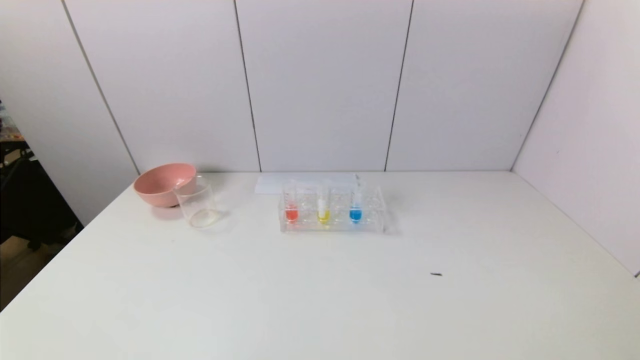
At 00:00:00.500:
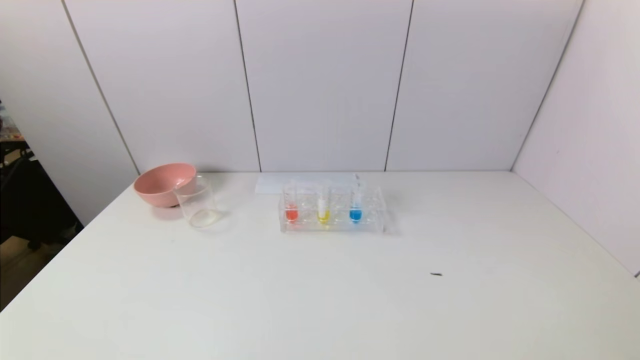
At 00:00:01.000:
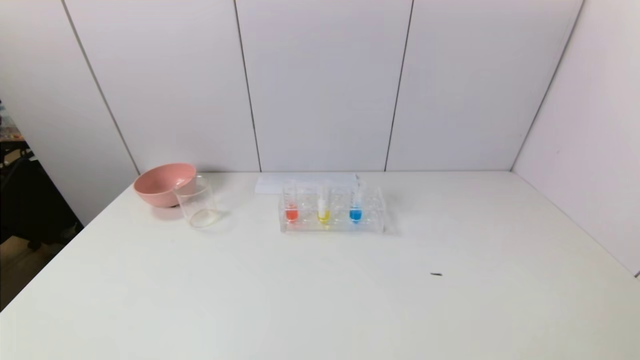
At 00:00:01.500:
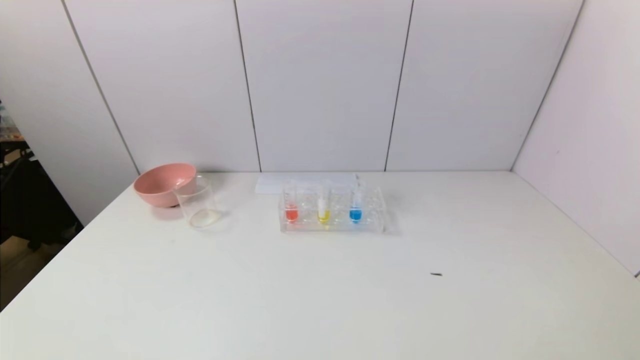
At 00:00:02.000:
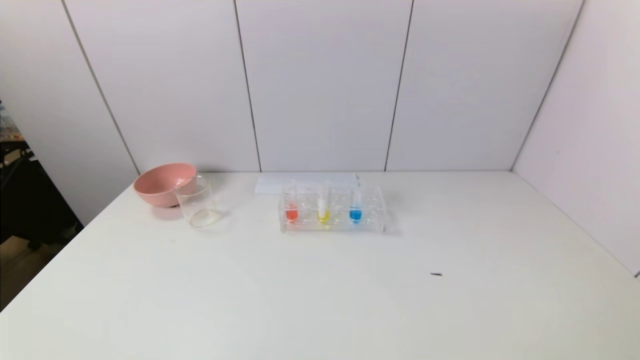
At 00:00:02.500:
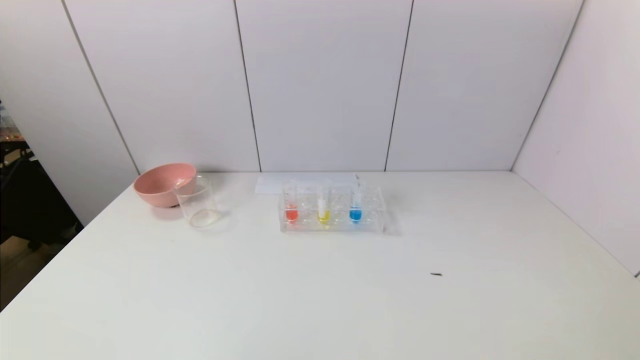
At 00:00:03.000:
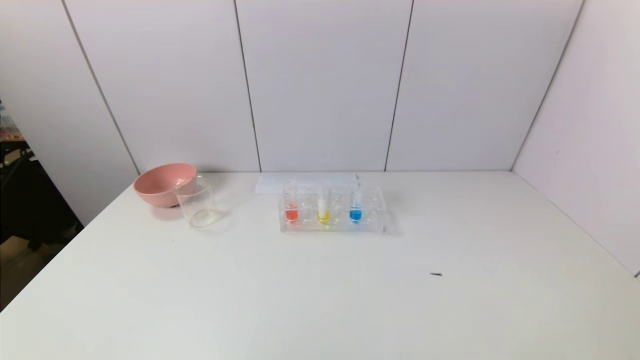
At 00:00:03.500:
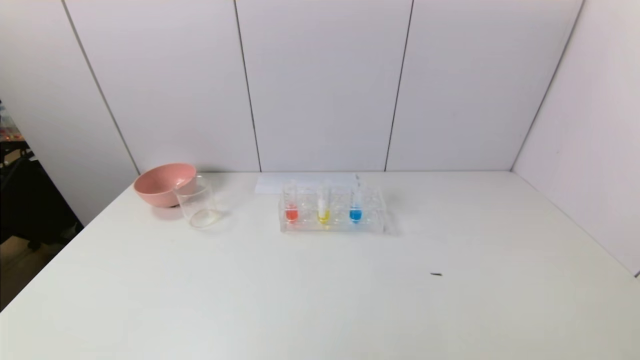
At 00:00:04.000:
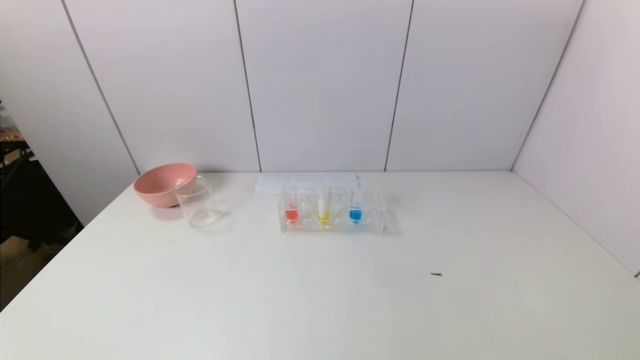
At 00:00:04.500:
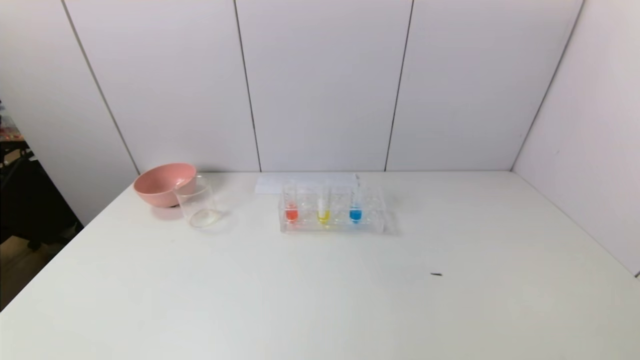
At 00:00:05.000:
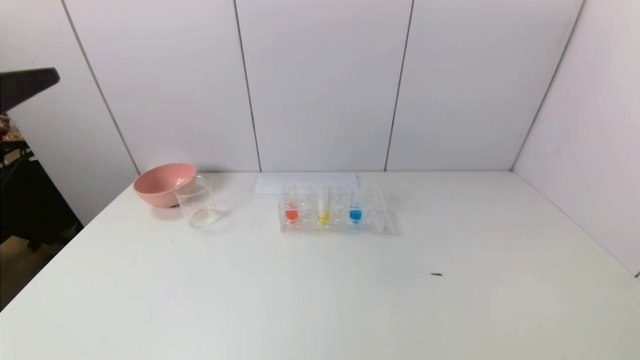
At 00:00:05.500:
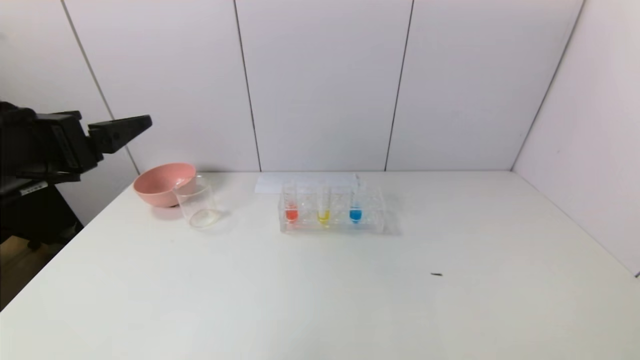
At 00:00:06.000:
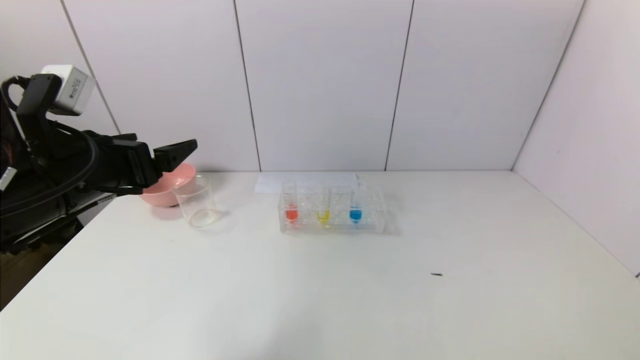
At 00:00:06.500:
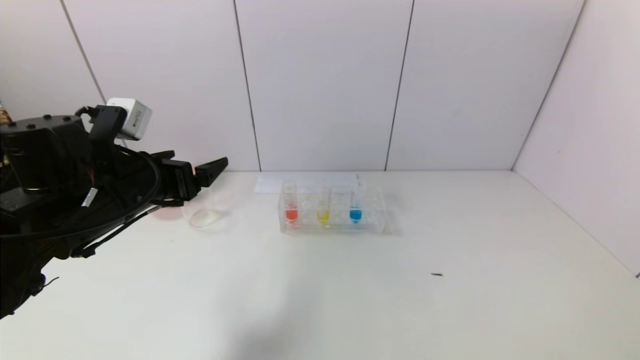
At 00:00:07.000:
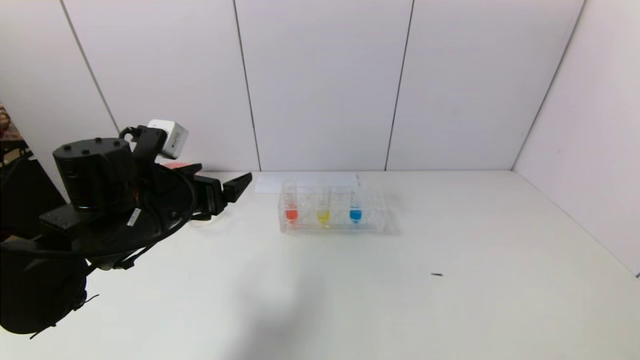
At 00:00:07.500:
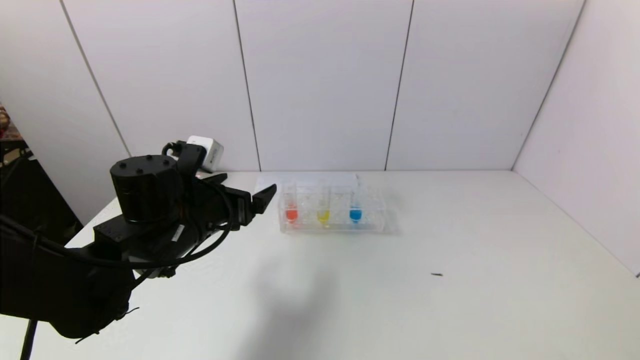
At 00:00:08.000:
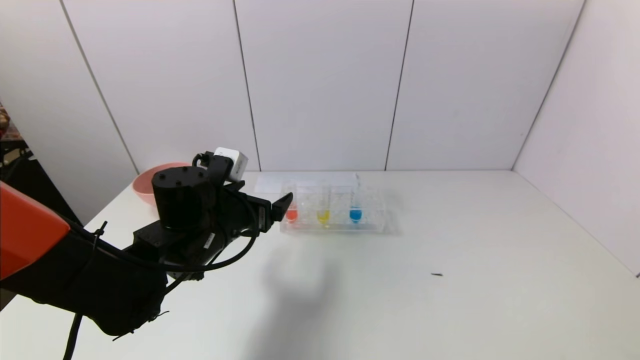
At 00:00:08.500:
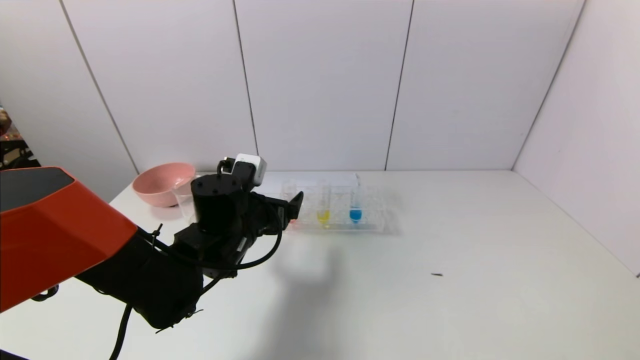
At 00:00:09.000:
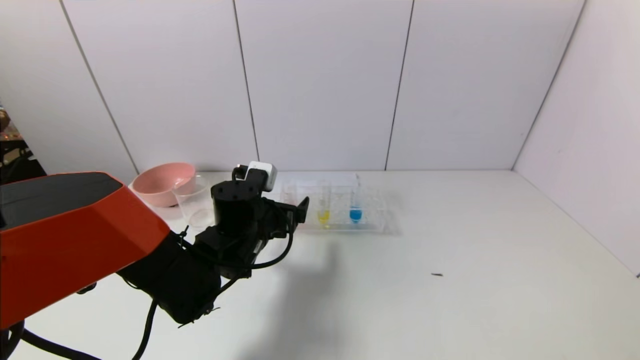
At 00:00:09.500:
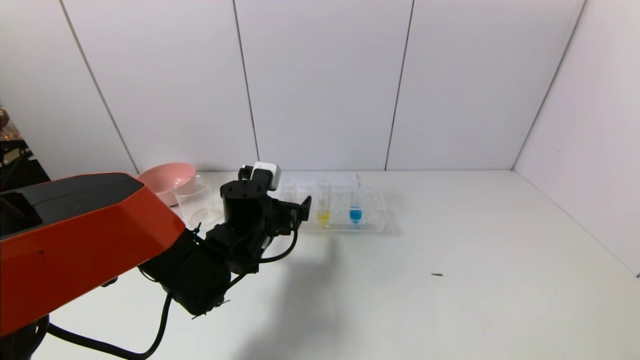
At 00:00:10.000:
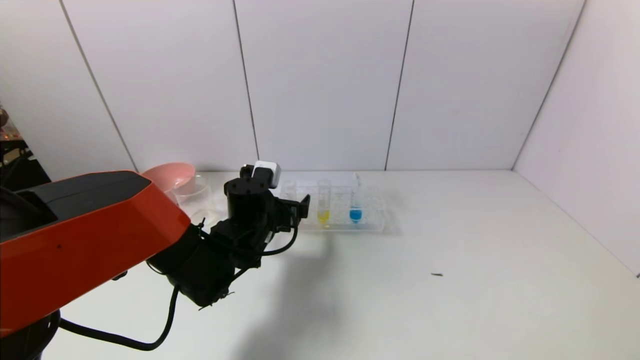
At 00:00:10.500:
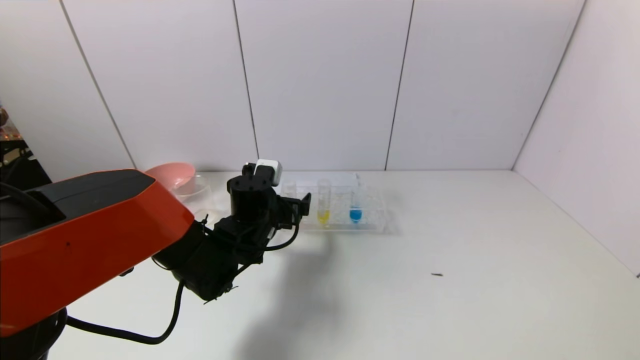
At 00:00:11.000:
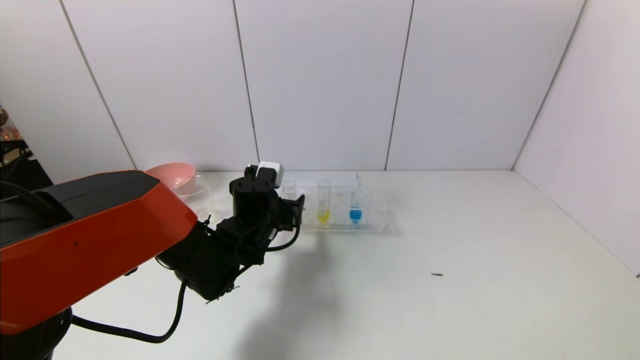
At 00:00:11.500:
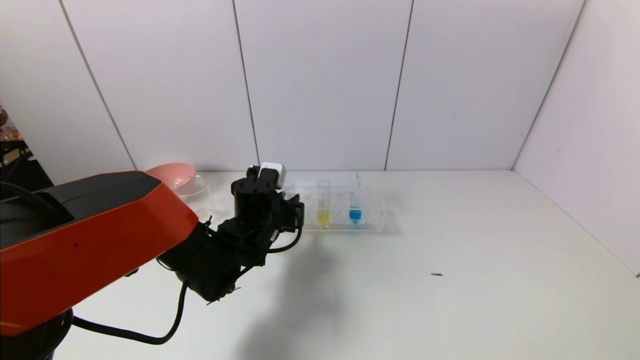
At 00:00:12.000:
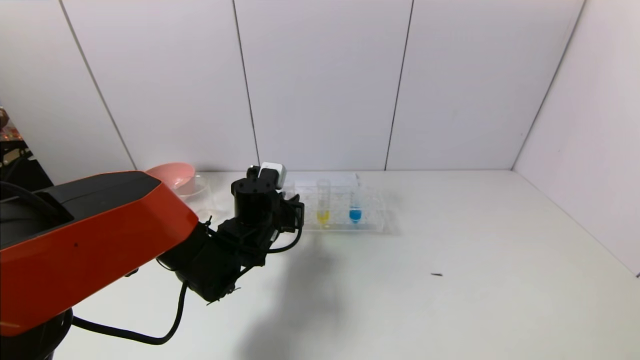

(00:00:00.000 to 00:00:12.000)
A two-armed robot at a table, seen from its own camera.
Task of the whole recording: pick up the test tube with yellow pigment and the test tube with red pigment by grippers and pour them into the beaker.
Step, 00:00:00.000 - 00:00:11.500: Grasp the red reagent with the left gripper.
00:00:00.000 - 00:00:02.000: Neither gripper changes place.
00:00:04.000 - 00:00:06.000: The left gripper goes approximately 25 cm forward and downward.
00:00:06.000 - 00:00:08.000: The left gripper heads downward, to the right and forward, covering roughly 15 cm.
00:00:08.000 - 00:00:10.000: The left gripper heads forward, covering roughly 5 cm.
00:00:10.000 - 00:00:12.000: The left gripper closes.

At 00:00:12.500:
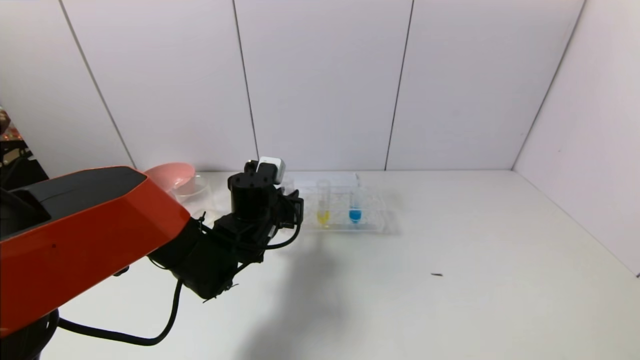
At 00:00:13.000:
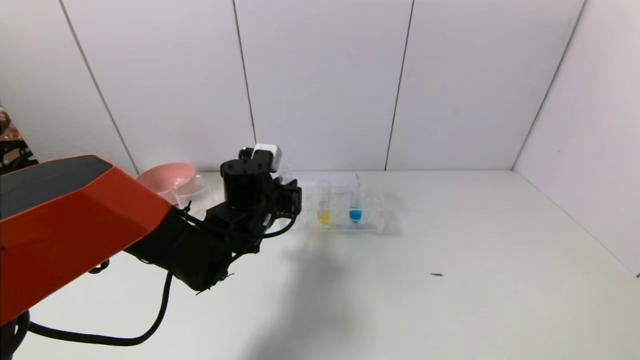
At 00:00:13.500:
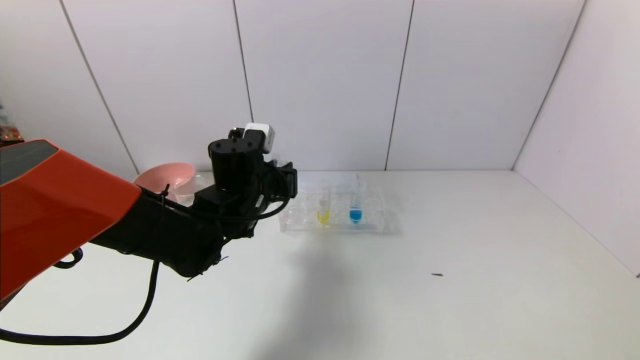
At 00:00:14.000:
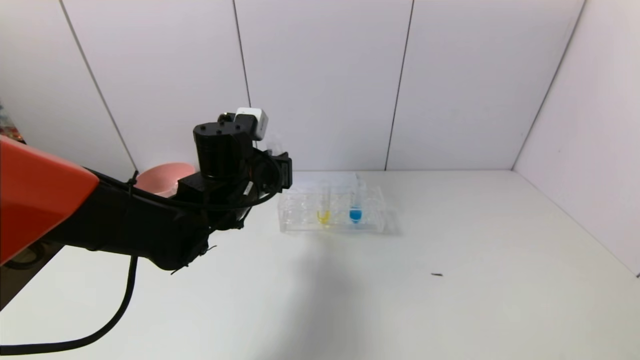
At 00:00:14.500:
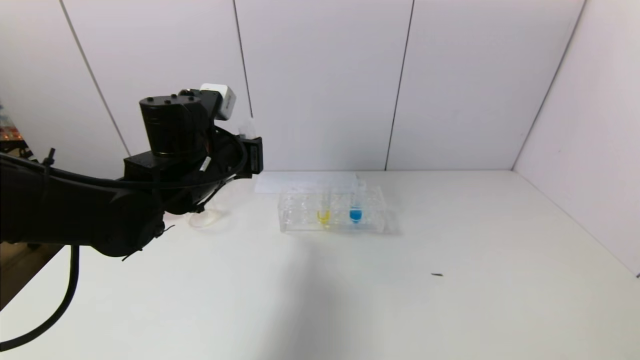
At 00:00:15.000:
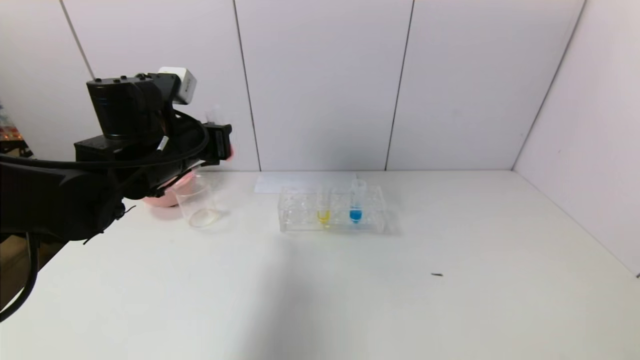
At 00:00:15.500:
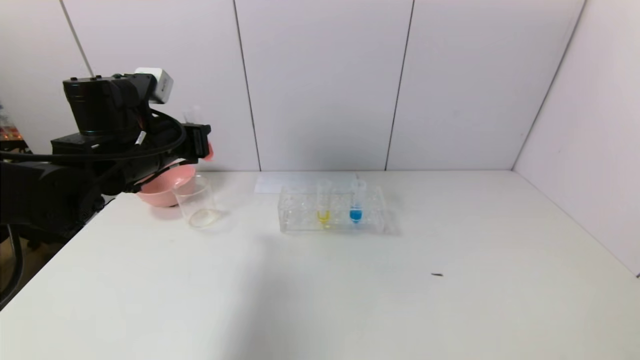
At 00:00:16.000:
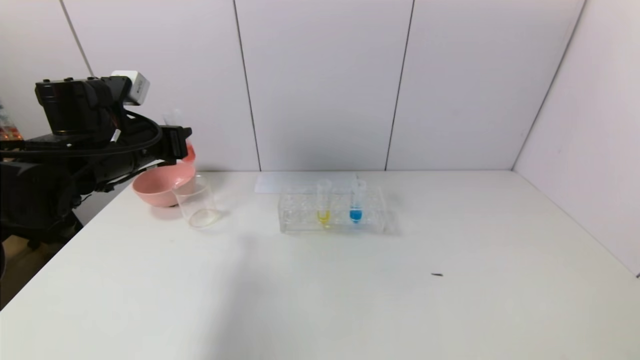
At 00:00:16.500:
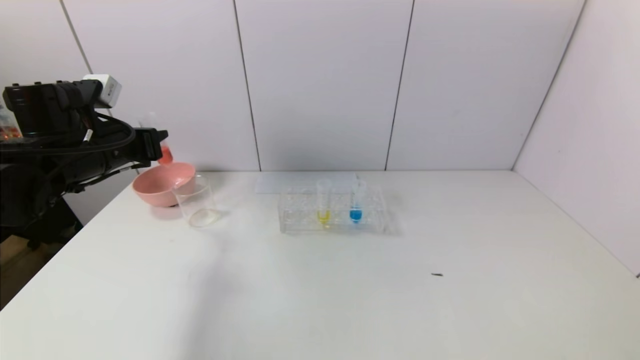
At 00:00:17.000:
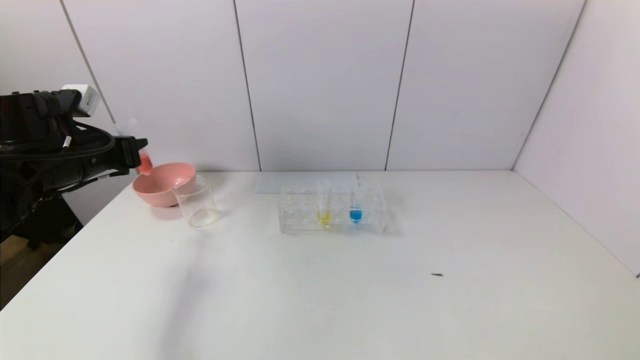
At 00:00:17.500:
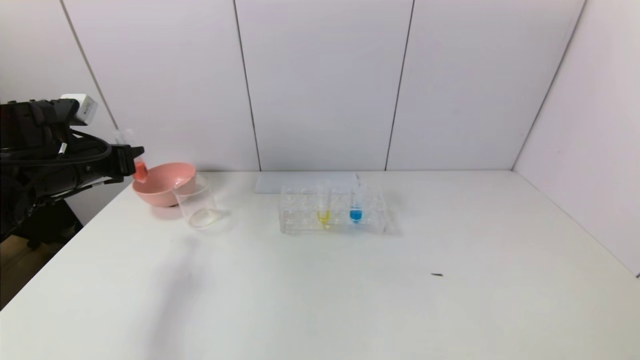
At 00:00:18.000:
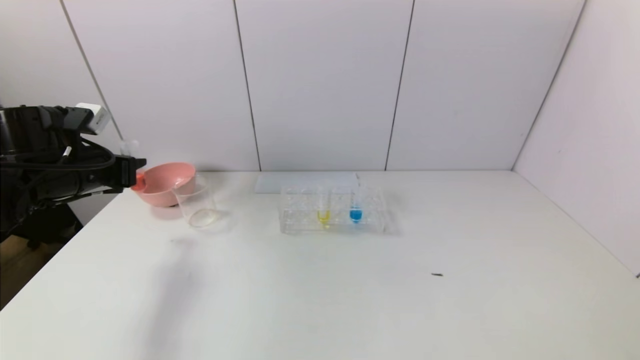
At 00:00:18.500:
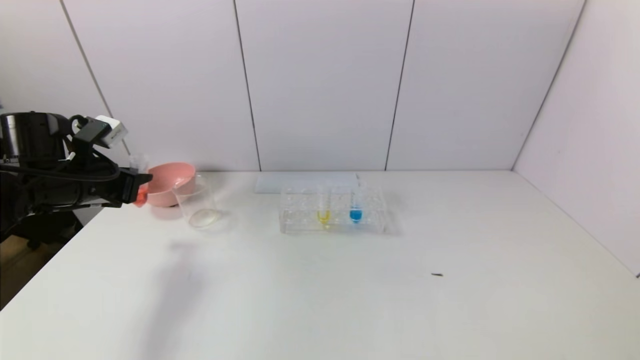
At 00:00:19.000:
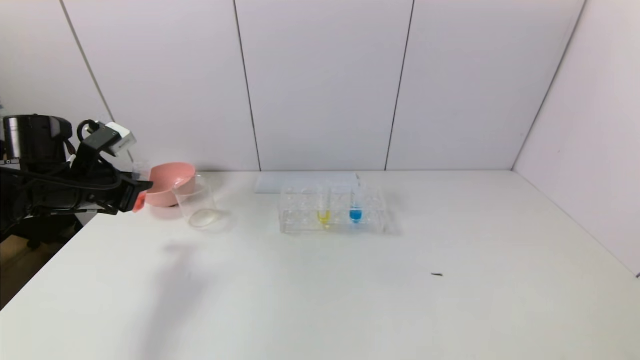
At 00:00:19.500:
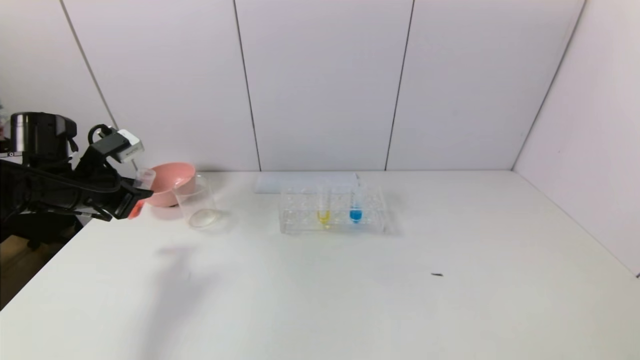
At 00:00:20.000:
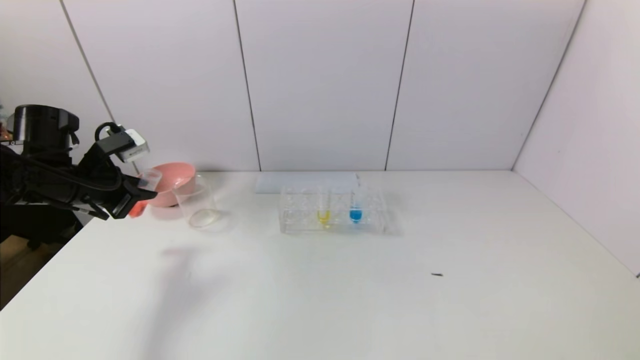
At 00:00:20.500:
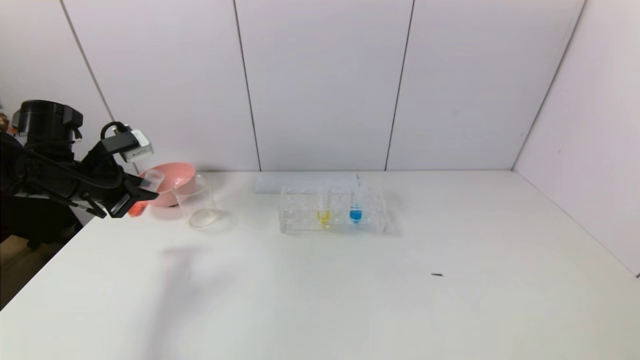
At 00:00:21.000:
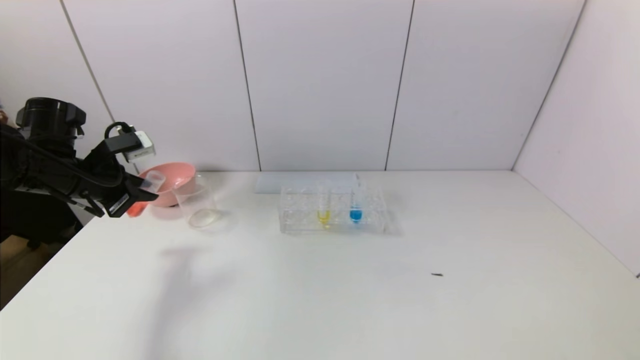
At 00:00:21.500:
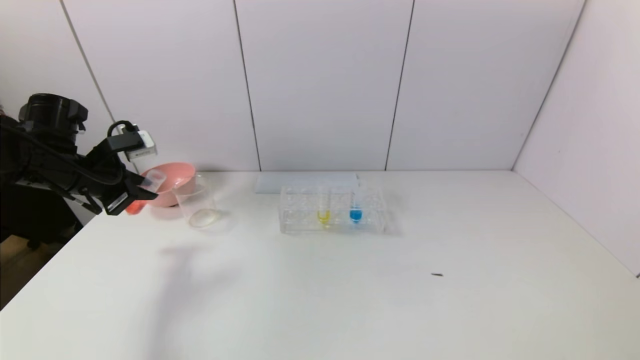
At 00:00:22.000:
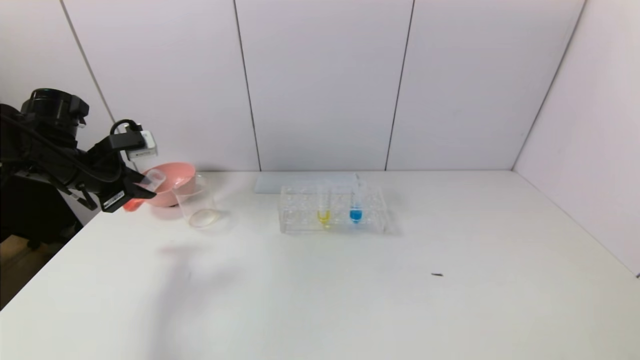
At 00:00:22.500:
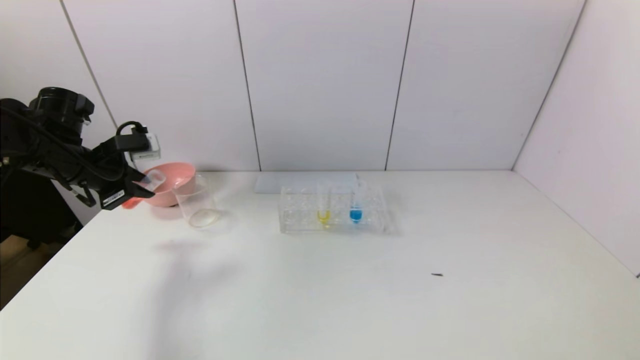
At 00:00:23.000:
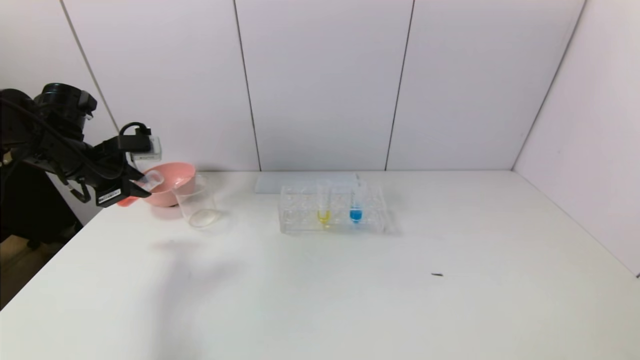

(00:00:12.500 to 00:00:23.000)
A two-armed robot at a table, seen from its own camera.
Task of the whole recording: pick up the test tube with yellow pigment and the test tube with red pigment by grippers and pour them into the beaker.
00:00:12.500 - 00:00:14.500: The left gripper moves upward and to the left, roughly 15 cm.
00:00:14.500 - 00:00:16.500: The left gripper moves to the left, some 15 cm.
00:00:16.500 - 00:00:19.000: The left gripper shifts by about 5 cm.
00:00:21.000 - 00:00:23.000: The grippers make only small movements.
